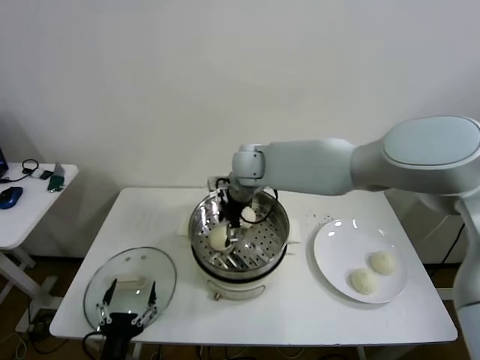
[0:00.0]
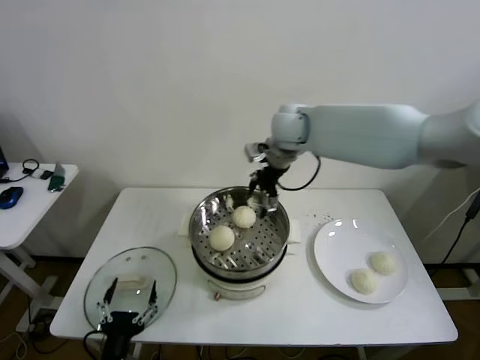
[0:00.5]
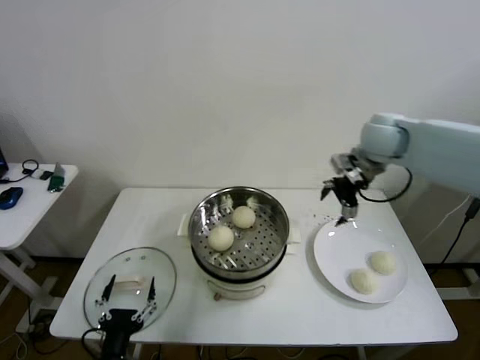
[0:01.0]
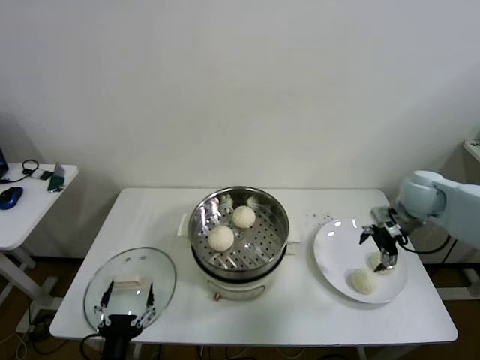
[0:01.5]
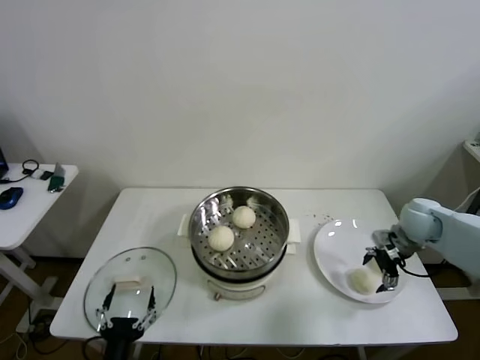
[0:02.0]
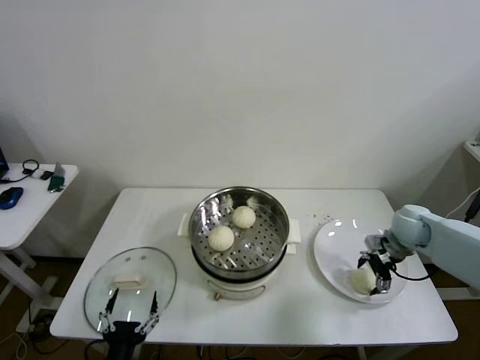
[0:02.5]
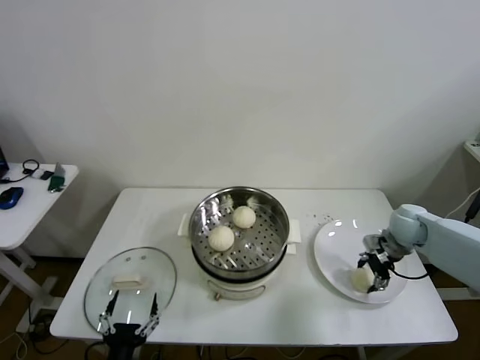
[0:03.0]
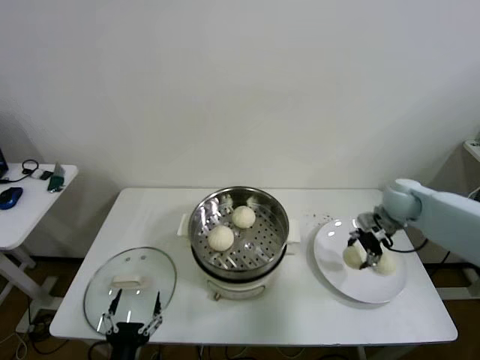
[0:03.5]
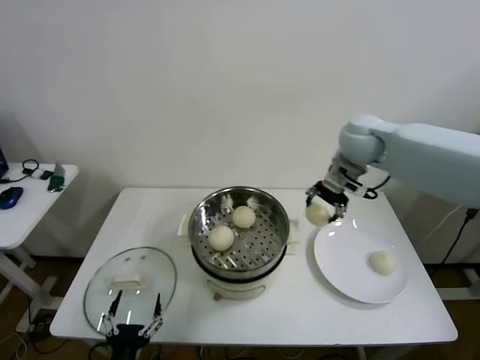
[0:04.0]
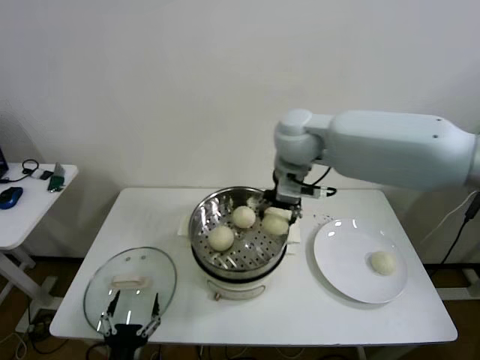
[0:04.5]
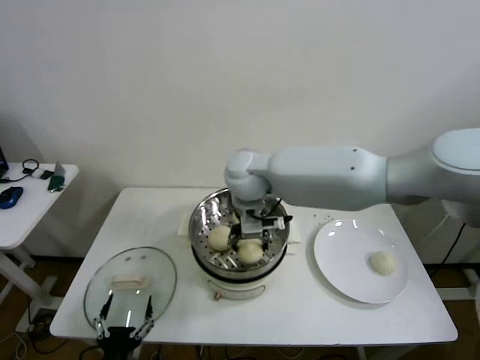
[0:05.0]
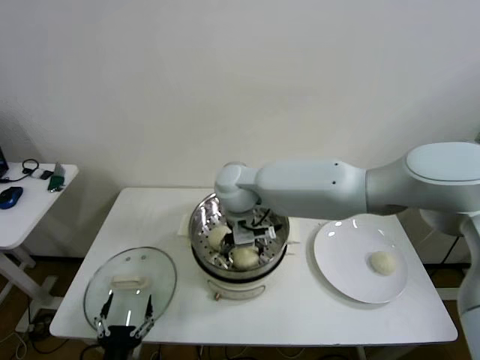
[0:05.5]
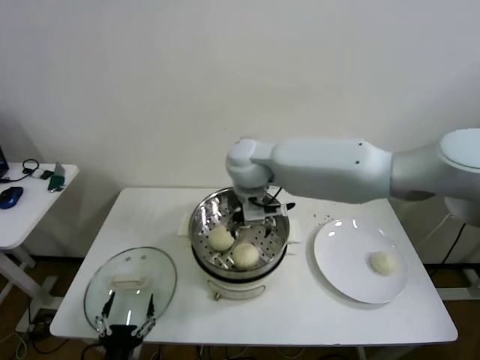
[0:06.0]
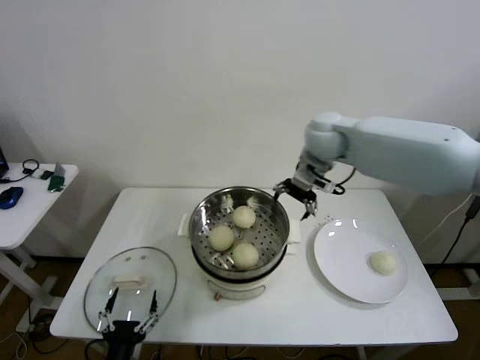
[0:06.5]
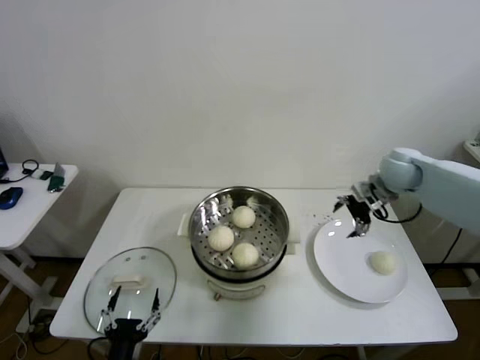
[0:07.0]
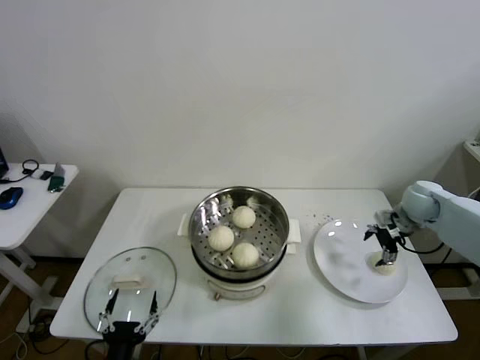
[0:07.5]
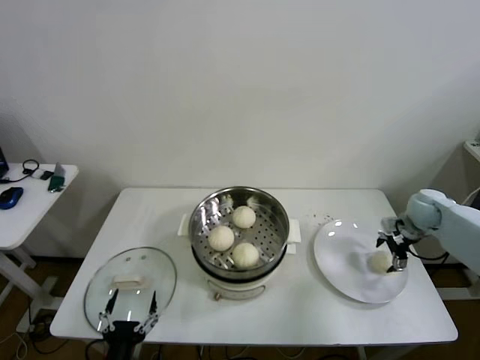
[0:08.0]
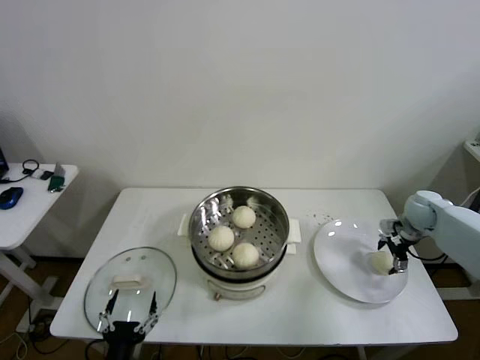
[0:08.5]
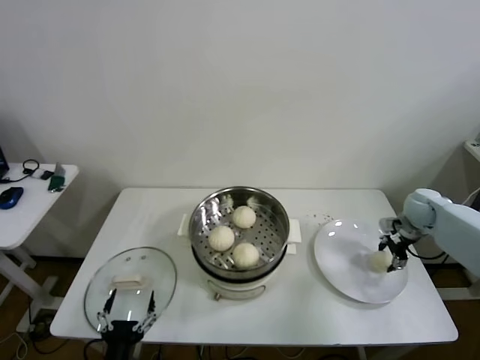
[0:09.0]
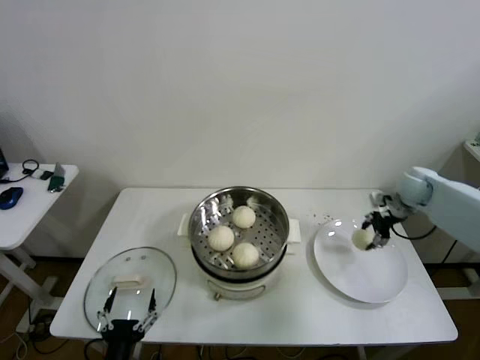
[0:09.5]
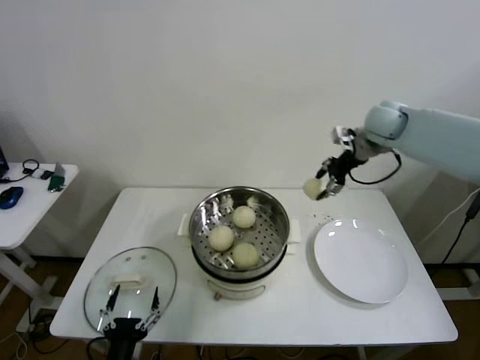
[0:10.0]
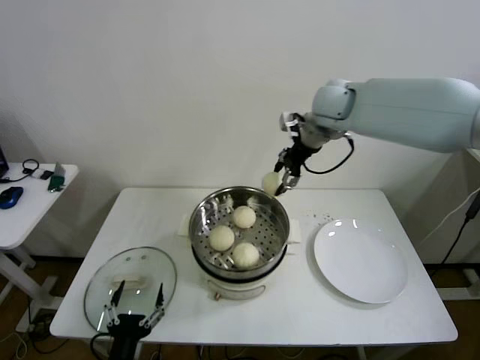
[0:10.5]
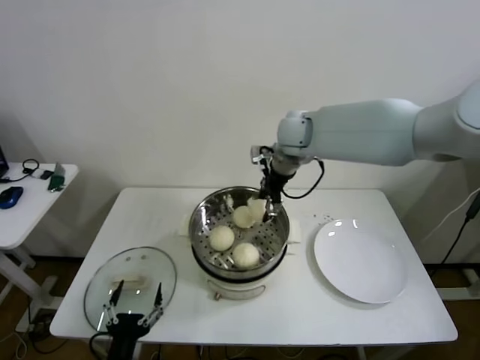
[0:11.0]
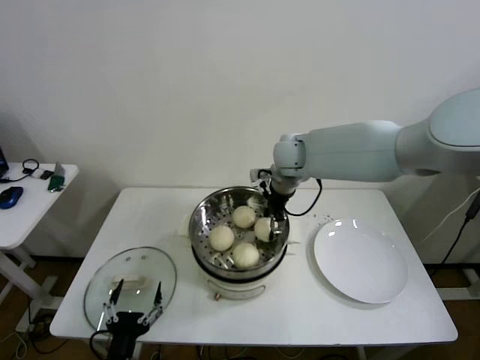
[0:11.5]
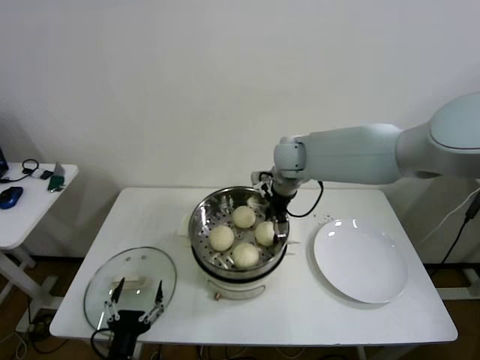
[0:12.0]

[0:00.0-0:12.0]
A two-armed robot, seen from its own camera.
Step, 0:00.5 to 0:03.0: Grasp the baozi in the plate with right gripper.
Step, 0:03.5 to 0:05.5: Place the baozi on the steamer with right gripper.
Step, 0:06.0 to 0:08.5: Grasp the baozi in the plate with right gripper.
Step, 0:09.0 to 0:11.5: Place the baozi on the steamer with right gripper.
0:00.0 to 0:02.0: The right gripper travels to the right by approximately 40 cm.
0:02.0 to 0:04.0: The right gripper moves upward and to the left, about 25 cm, and closes.
0:04.0 to 0:06.0: The right gripper travels to the left by roughly 20 cm, and opens its fingers.
0:06.0 to 0:08.0: The right gripper is displaced to the right by some 50 cm.
0:08.0 to 0:10.0: The right gripper moves upward and to the left, roughly 25 cm, and closes its fingers.
0:10.0 to 0:12.0: The right gripper goes some 20 cm to the left, and opens up.

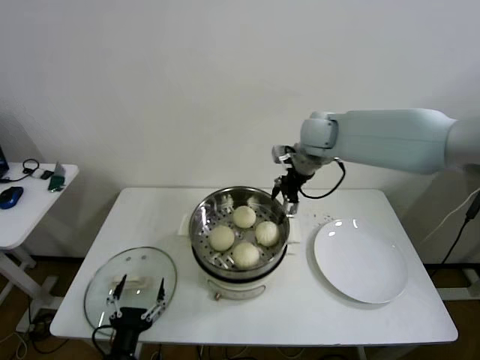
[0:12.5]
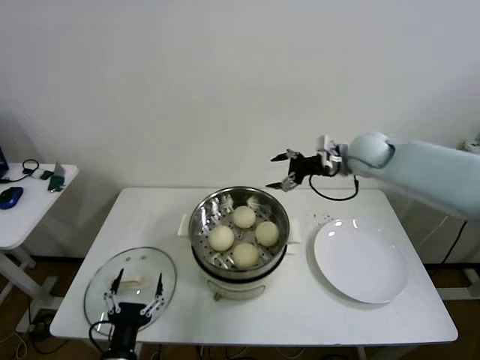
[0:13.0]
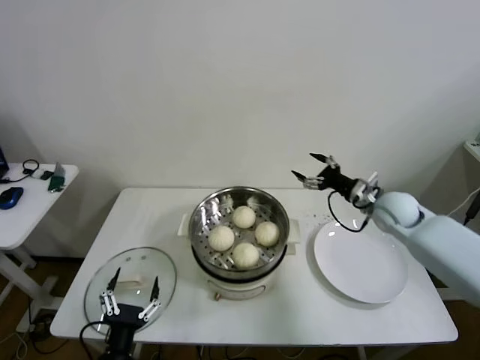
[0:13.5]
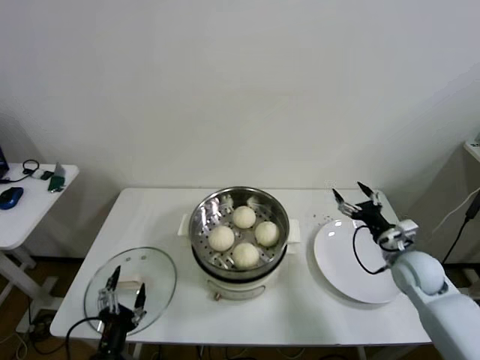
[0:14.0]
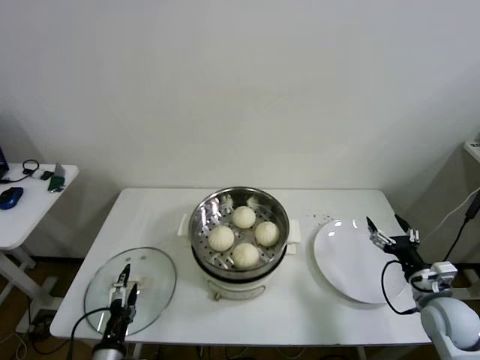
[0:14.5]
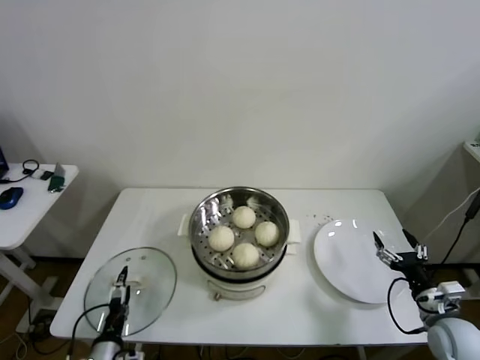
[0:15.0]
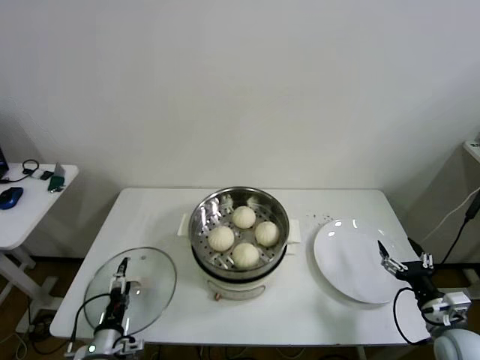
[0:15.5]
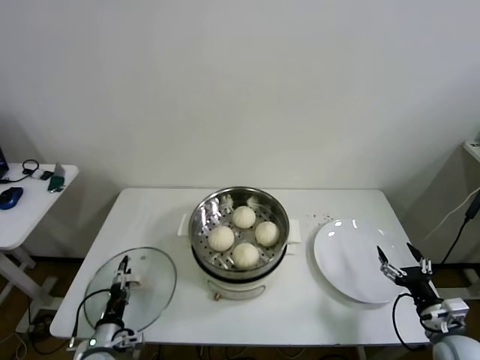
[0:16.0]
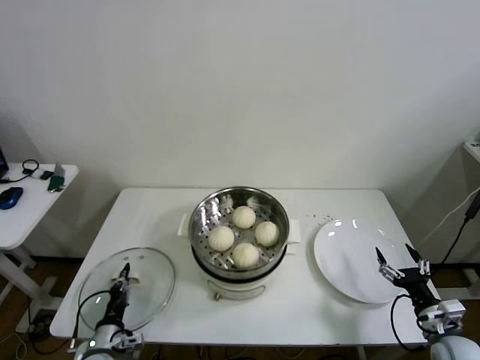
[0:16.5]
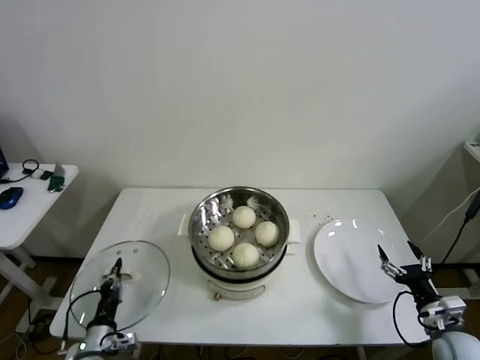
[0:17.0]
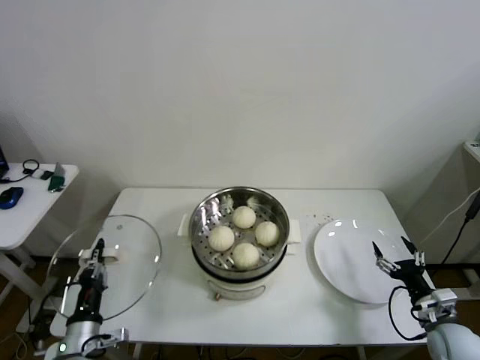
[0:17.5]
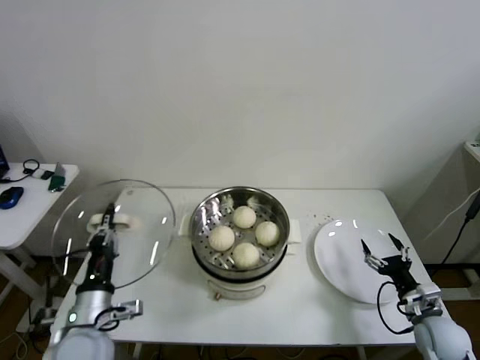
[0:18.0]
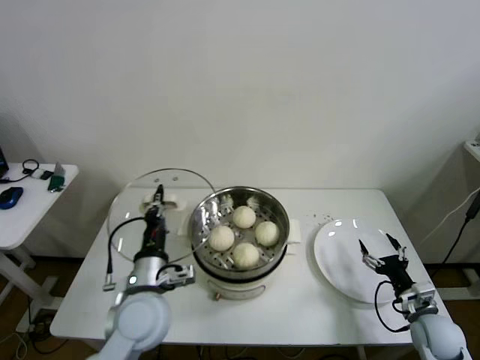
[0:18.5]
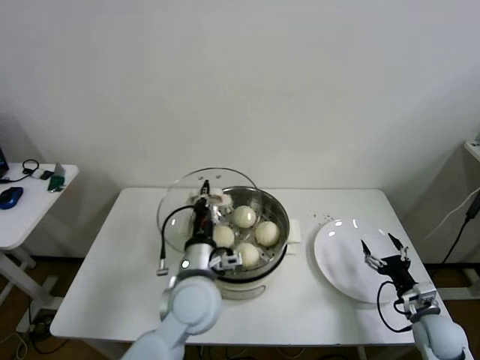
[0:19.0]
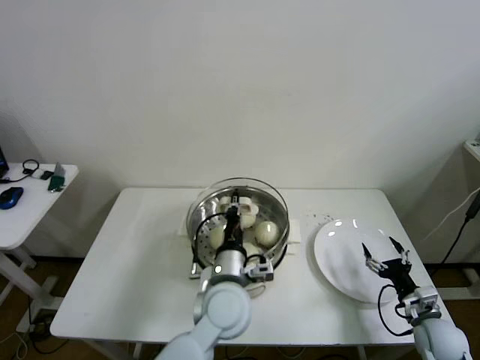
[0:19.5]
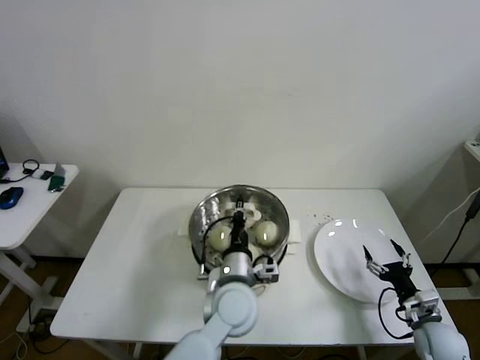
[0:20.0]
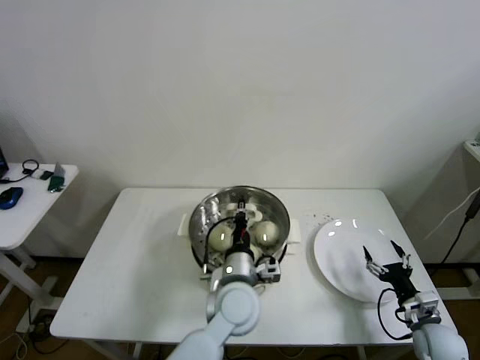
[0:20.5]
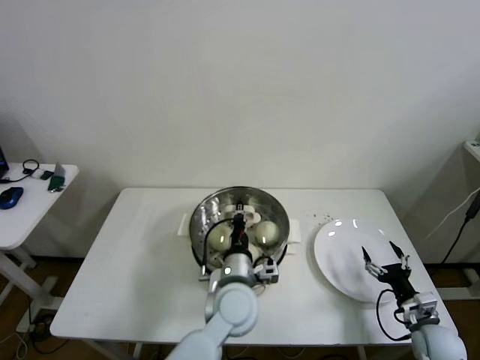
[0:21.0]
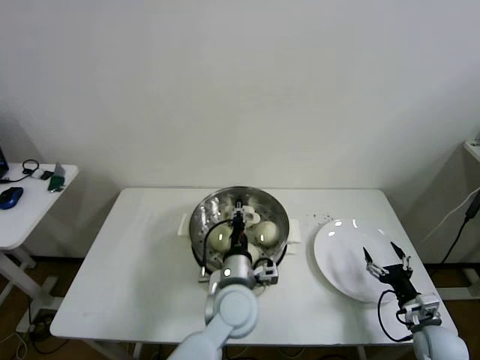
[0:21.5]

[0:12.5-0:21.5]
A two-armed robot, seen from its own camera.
Step, 0:12.5 to 0:16.0: Grasp the pot lid with left gripper.
0:12.5 to 0:14.5: The right gripper heads backward, downward and to the right, covering some 50 cm.
0:14.5 to 0:17.0: The right gripper heads backward, covering about 5 cm. Meanwhile the left gripper goes approximately 10 cm forward, downward and to the left, and closes.
0:17.0 to 0:19.5: The left gripper shifts about 35 cm to the right and upward. Meanwhile the right gripper shifts by roughly 5 cm.
0:19.5 to 0:21.5: The grippers move only a little.

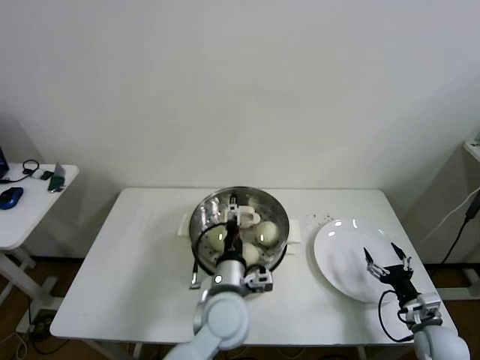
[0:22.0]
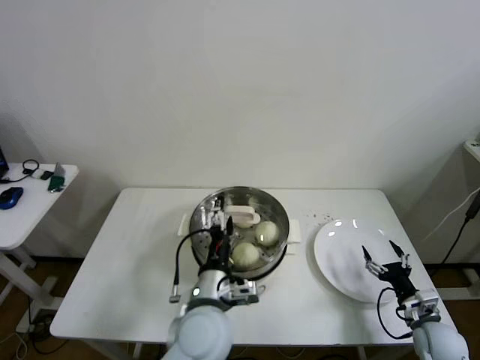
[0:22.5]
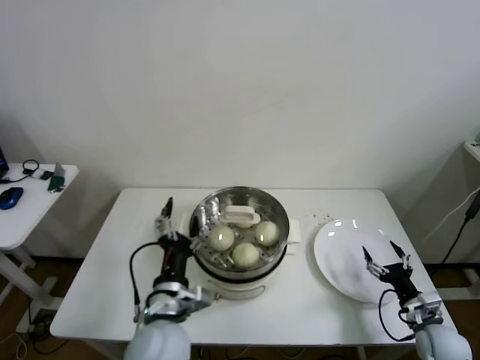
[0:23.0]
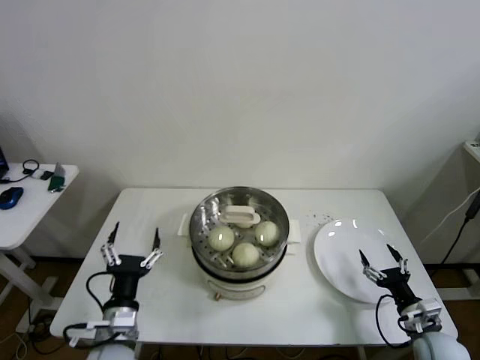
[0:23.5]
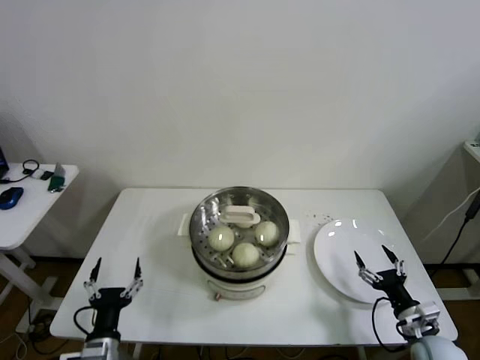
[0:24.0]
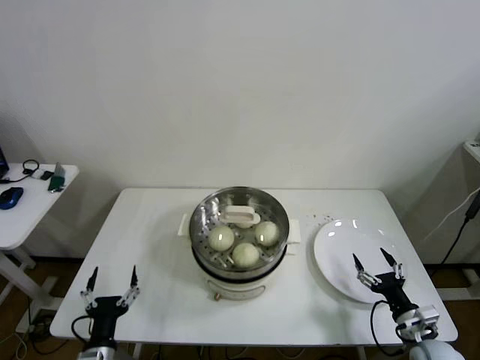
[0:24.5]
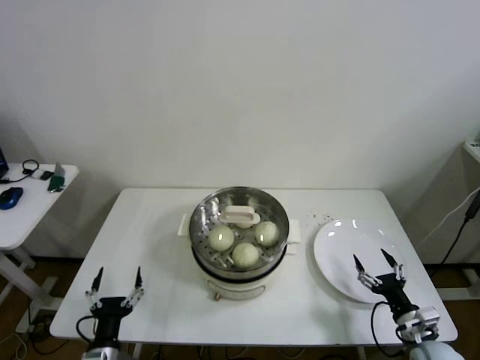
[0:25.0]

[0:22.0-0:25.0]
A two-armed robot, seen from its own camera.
0:22.0 to 0:23.5: The left gripper travels to the left and backward by about 20 cm.
0:23.5 to 0:25.0: The left gripper heads downward, to the left and backward, covering roughly 15 cm.

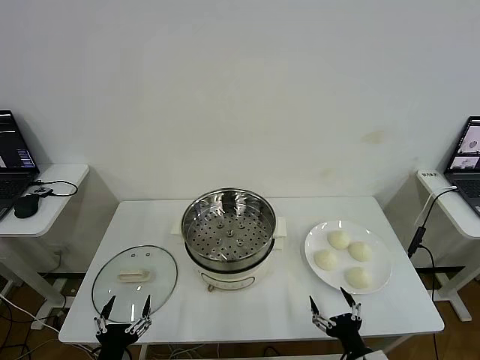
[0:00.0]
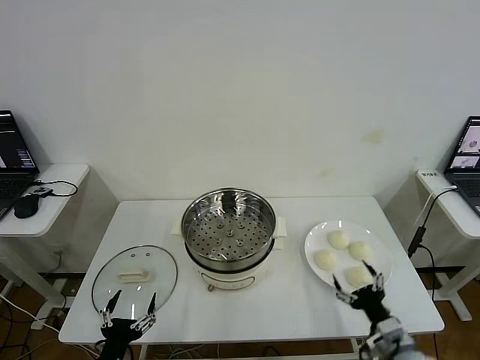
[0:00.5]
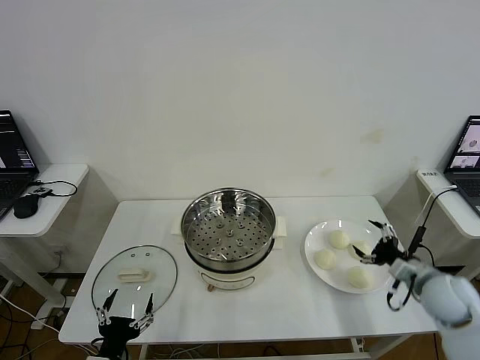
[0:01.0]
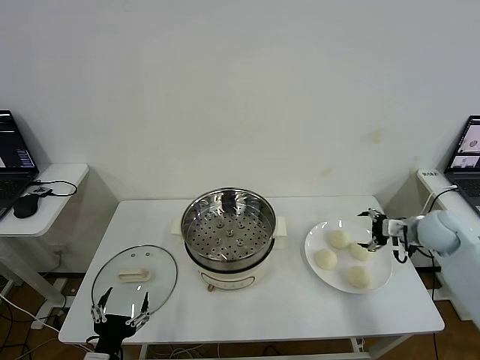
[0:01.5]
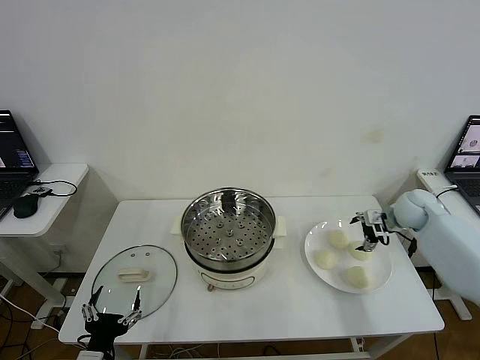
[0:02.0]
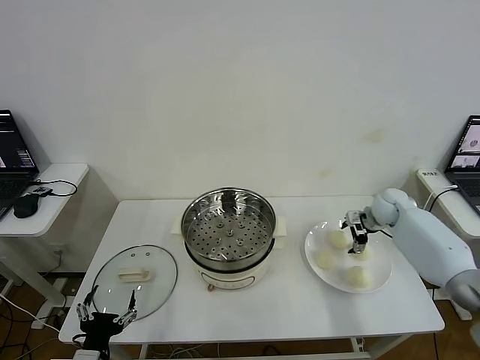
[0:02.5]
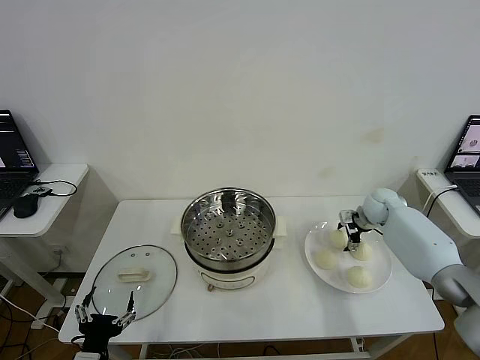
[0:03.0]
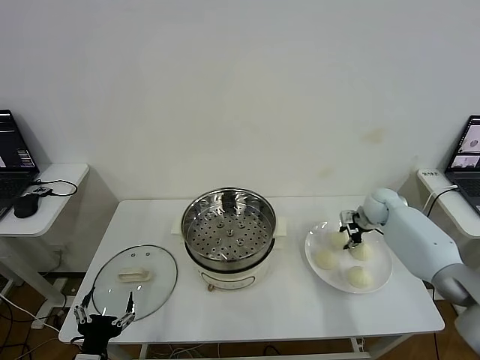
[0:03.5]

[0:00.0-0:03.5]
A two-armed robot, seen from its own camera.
Step, 0:00.0 to 0:03.0: Grasp the baozi in the plate with right gripper.
0:02.0 to 0:03.5: The right gripper moves approximately 10 cm, and closes.
